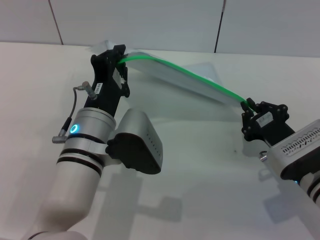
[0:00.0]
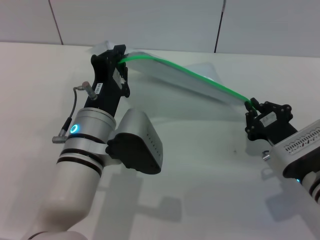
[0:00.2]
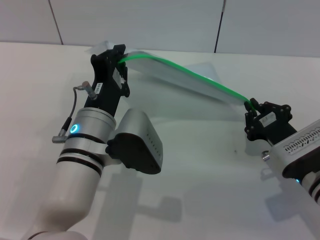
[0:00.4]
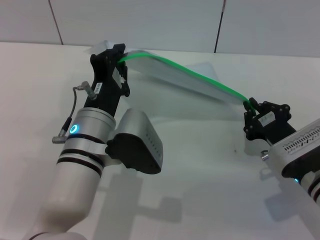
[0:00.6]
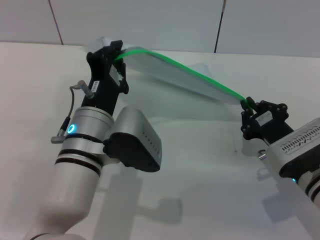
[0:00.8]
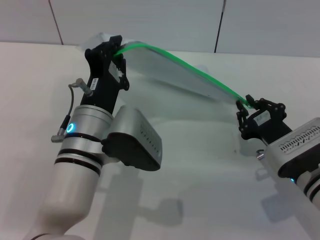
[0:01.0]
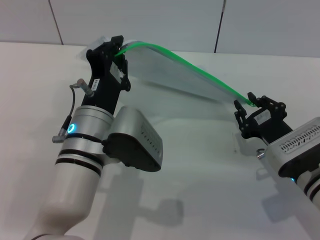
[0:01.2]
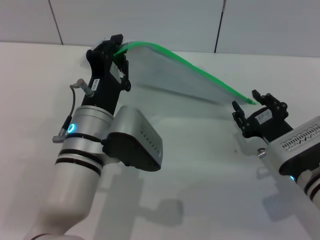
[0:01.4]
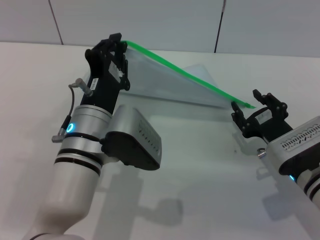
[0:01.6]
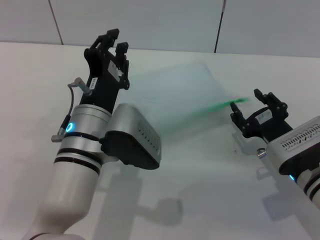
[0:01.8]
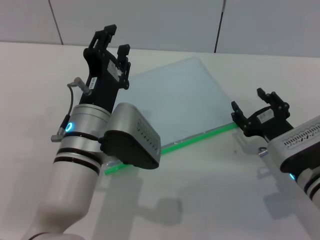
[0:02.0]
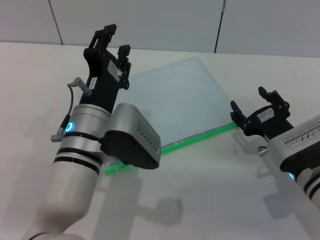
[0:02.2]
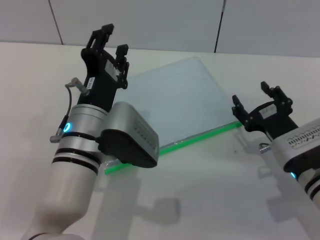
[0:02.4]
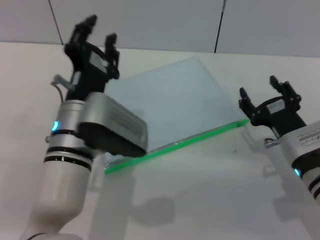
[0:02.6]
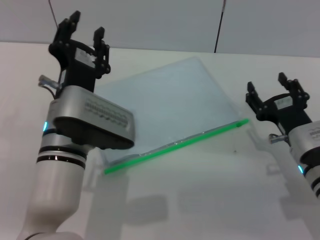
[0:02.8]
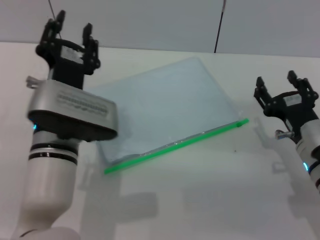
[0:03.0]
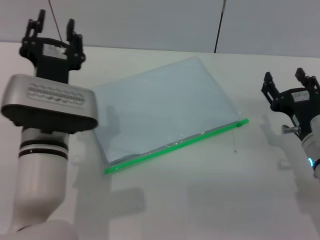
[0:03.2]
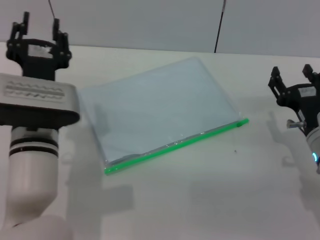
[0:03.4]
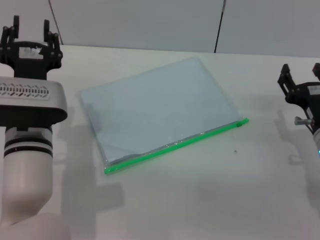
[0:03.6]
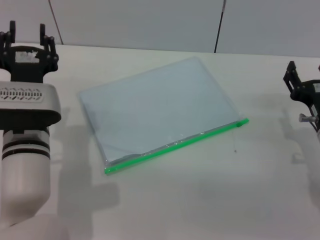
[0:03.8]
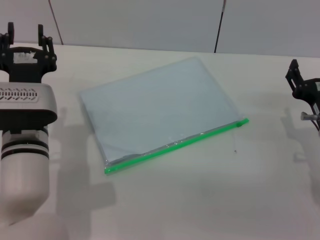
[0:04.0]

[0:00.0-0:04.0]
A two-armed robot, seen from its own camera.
Step, 0:01.6 to 0:02.4: Place the transparent plastic bag.
0:00.0 to 0:01.4: The right gripper opens.
0:01.4 to 0:02.6: The right gripper opens; the left gripper opens.
0:02.6 to 0:04.0: The left gripper moves to the left, some 5 cm.

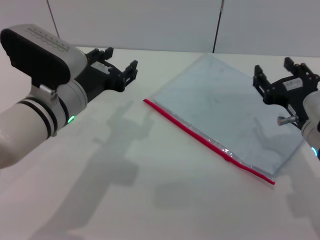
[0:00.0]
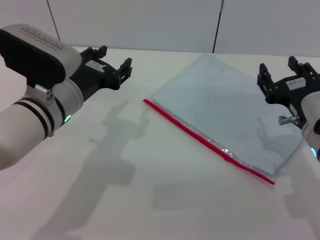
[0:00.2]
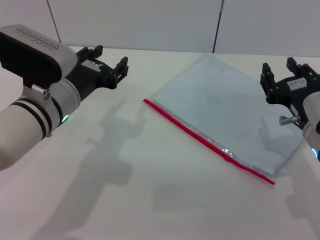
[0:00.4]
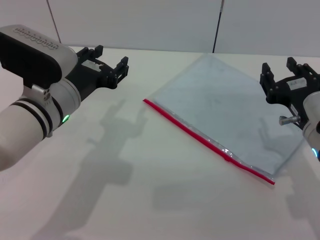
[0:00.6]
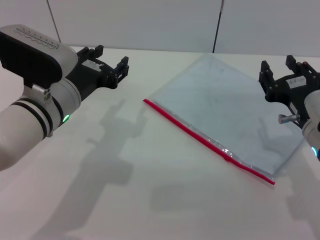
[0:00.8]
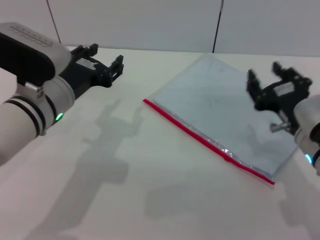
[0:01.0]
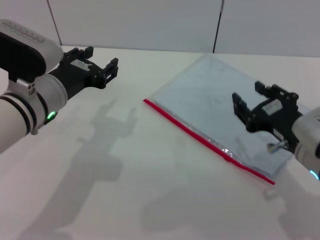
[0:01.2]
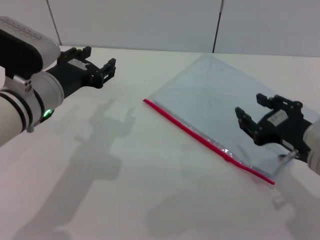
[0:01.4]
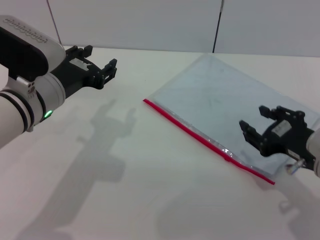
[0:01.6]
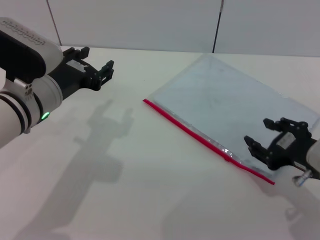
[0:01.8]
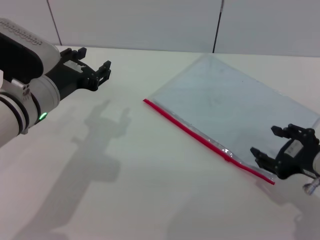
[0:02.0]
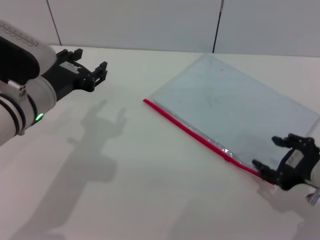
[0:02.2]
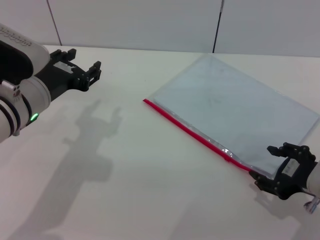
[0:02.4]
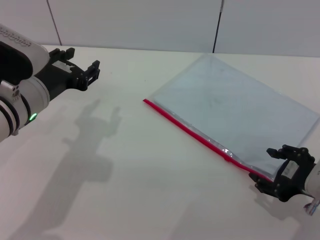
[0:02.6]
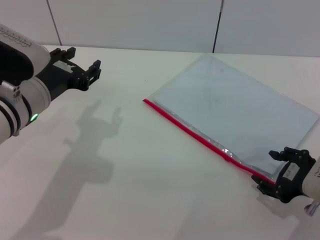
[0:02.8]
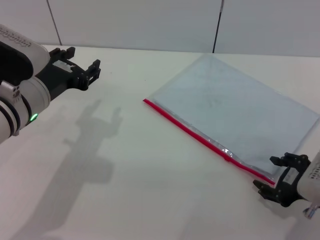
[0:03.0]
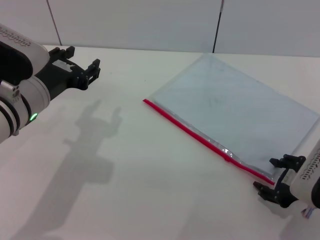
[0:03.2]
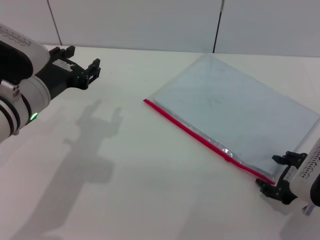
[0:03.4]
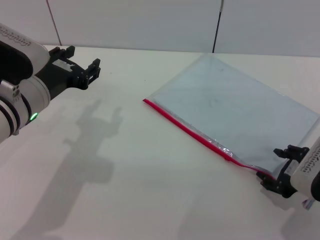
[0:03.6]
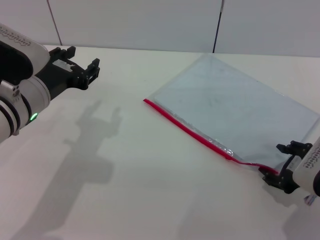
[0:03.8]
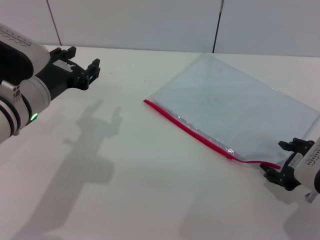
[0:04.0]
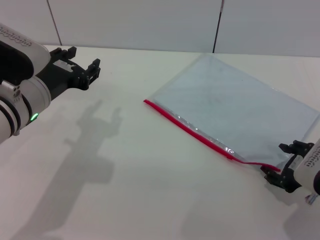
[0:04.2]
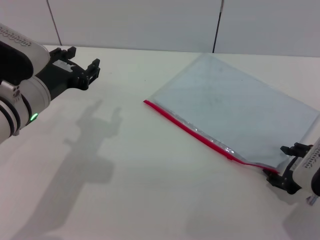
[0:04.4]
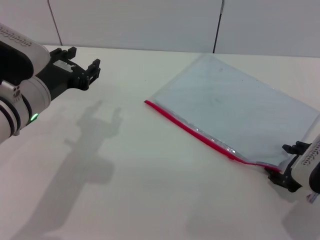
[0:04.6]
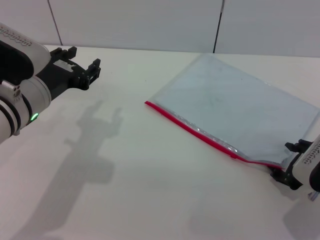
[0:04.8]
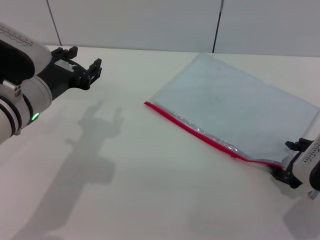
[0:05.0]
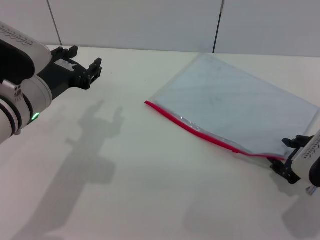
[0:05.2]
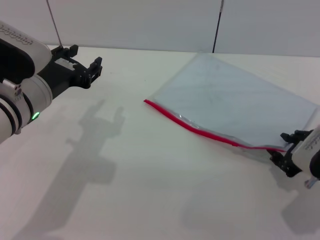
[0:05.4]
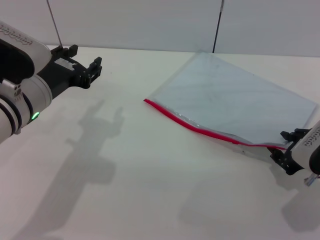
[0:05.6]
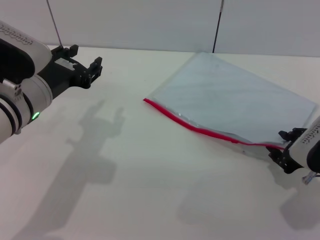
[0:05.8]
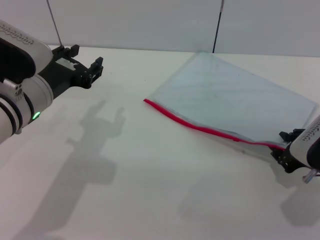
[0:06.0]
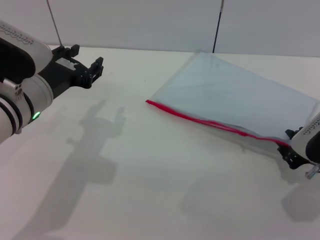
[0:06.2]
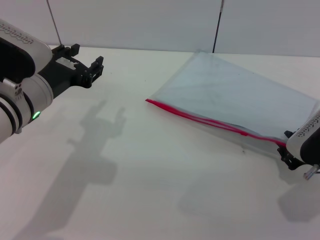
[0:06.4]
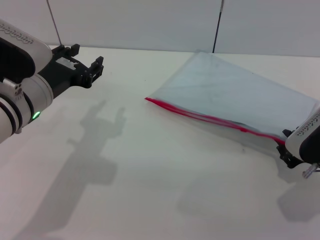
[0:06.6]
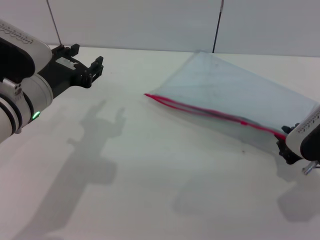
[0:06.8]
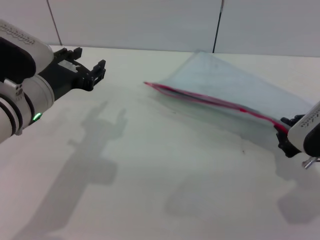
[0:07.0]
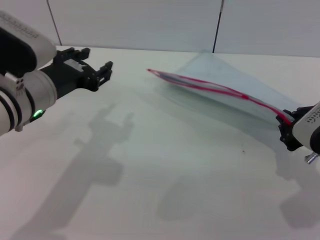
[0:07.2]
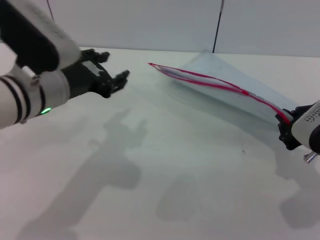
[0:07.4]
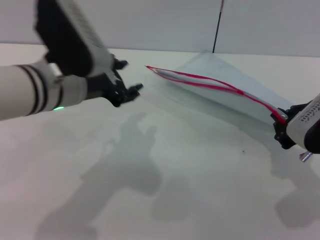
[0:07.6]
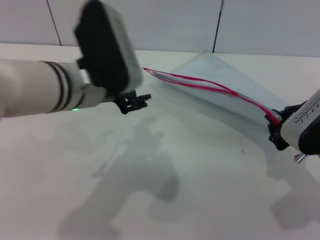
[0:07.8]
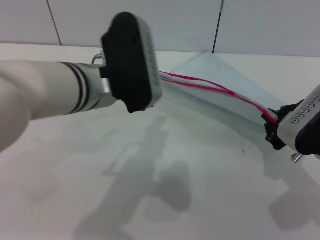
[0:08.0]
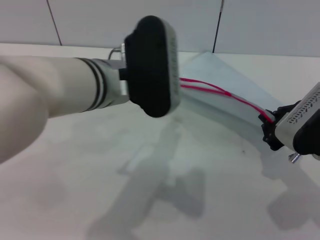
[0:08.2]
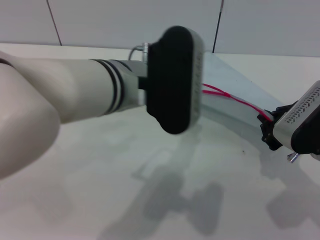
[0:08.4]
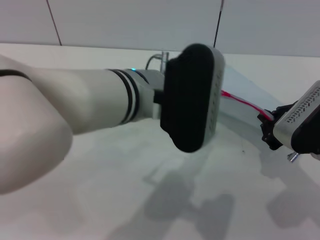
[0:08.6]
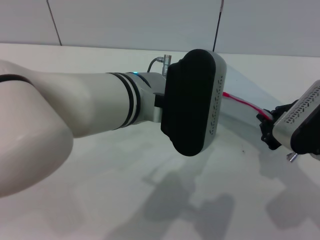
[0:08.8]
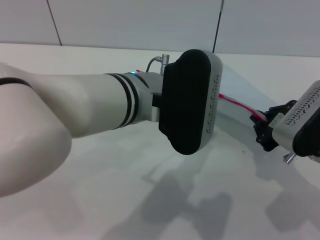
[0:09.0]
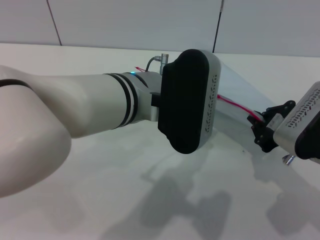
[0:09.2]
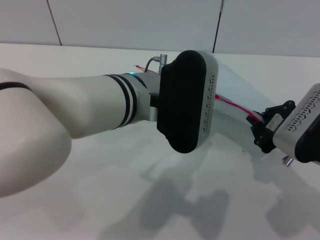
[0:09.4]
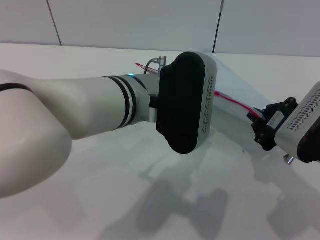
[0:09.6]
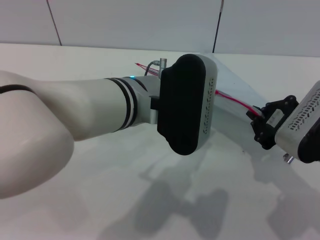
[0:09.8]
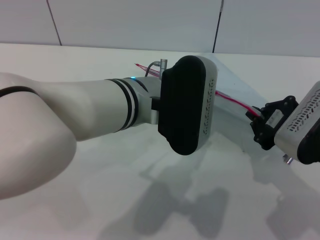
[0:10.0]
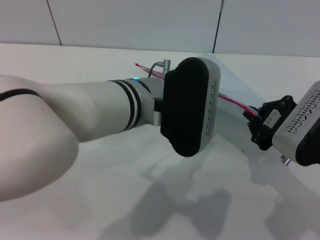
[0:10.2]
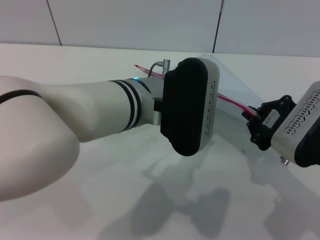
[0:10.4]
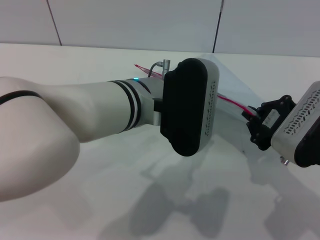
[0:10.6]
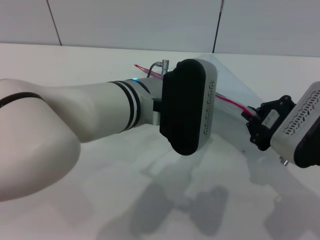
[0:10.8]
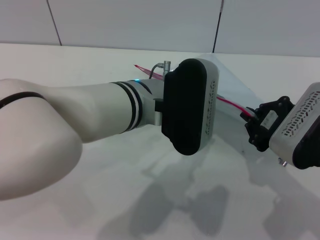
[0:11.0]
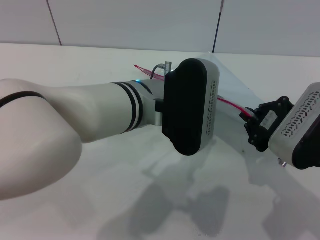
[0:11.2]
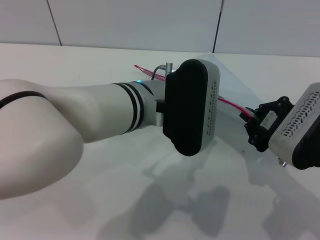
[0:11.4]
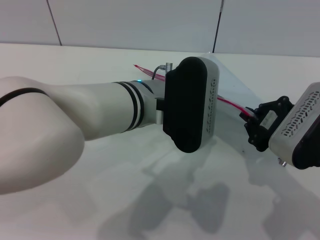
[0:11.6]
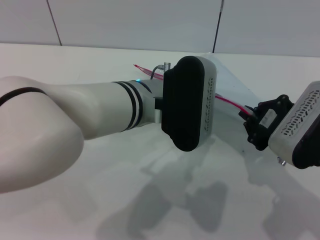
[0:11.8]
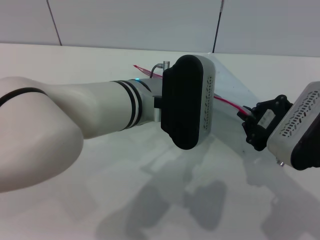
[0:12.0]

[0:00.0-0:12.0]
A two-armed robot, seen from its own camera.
Step, 0:00.0 to 0:08.2: Pick up the transparent plastic bag with the right gripper.
0:03.0 to 0:04.4: The grippers move only a little.
0:04.4 to 0:06.0: The right gripper closes.
0:06.0 to 0:07.6: The right gripper closes, while the left gripper ends up roughly 5 cm from where it was.
0:07.6 to 0:09.0: The left gripper heads to the right, covering approximately 10 cm.
0:09.0 to 0:12.0: The grippers stay close to where they were, moving slightly.

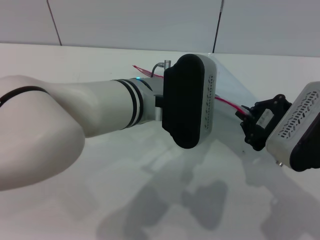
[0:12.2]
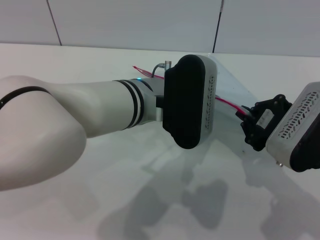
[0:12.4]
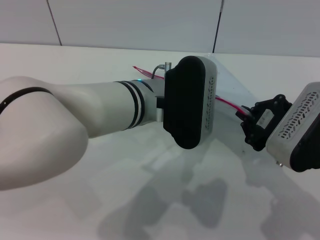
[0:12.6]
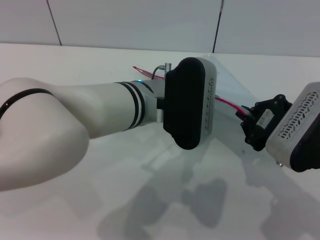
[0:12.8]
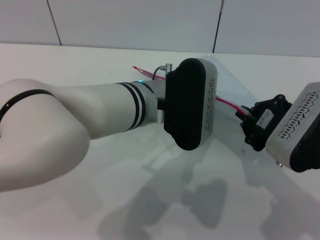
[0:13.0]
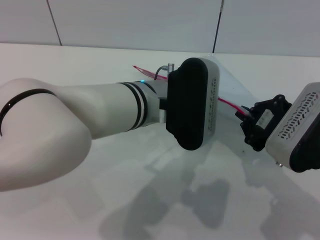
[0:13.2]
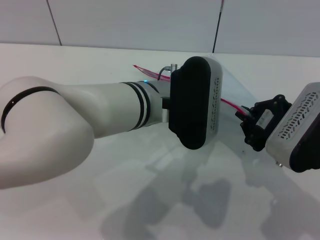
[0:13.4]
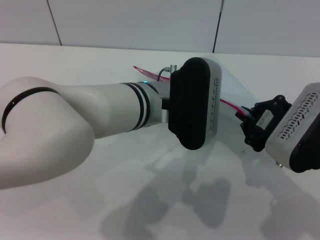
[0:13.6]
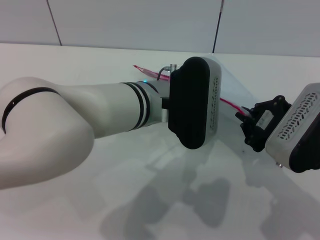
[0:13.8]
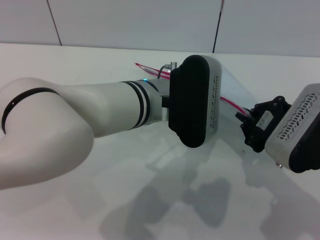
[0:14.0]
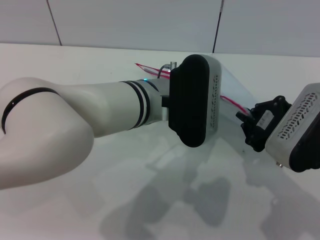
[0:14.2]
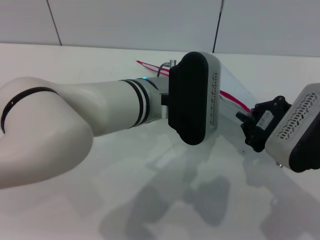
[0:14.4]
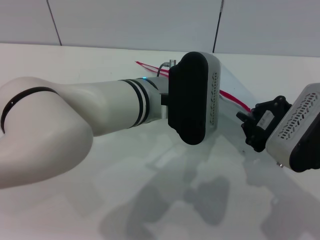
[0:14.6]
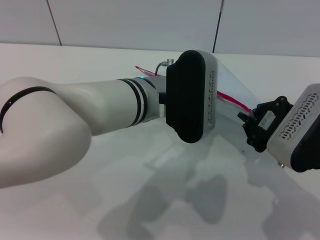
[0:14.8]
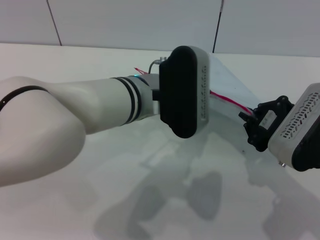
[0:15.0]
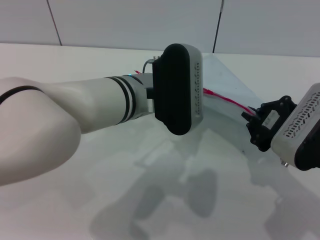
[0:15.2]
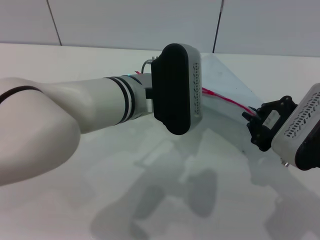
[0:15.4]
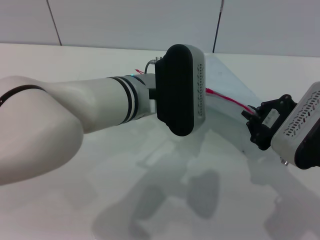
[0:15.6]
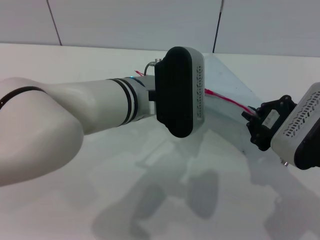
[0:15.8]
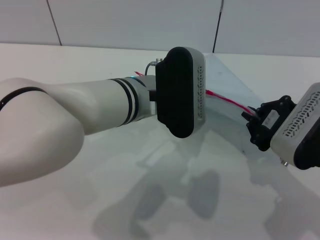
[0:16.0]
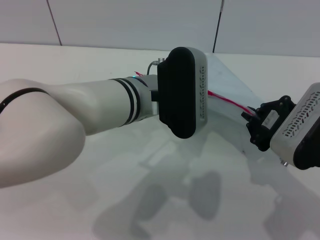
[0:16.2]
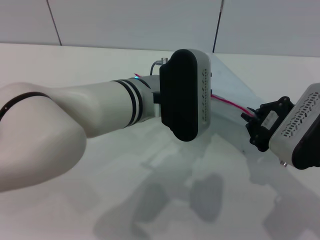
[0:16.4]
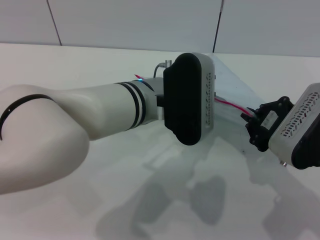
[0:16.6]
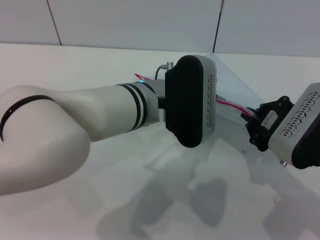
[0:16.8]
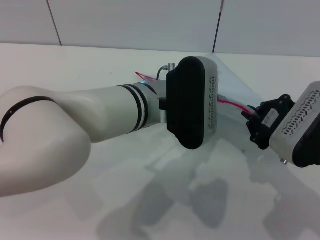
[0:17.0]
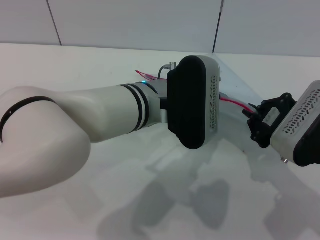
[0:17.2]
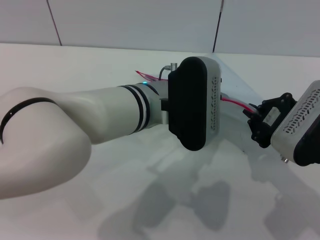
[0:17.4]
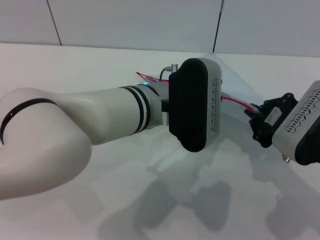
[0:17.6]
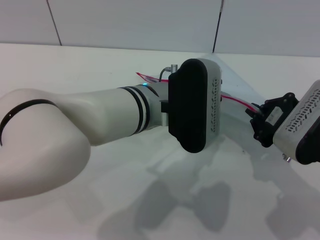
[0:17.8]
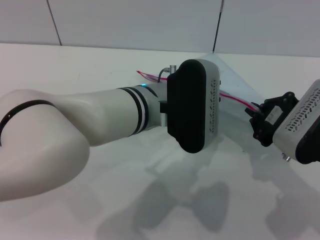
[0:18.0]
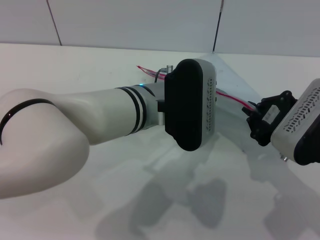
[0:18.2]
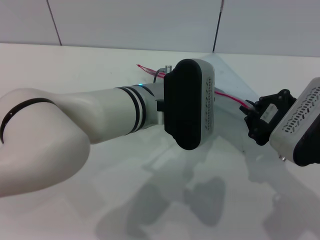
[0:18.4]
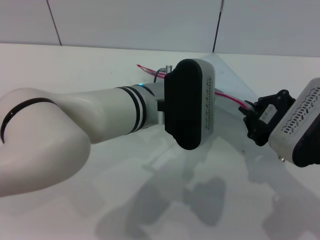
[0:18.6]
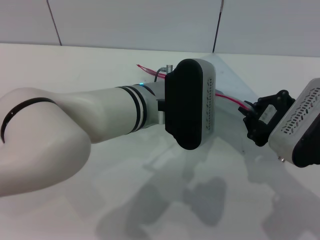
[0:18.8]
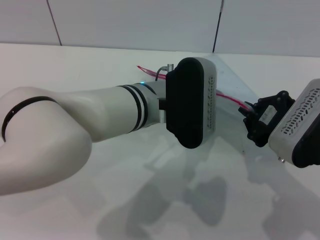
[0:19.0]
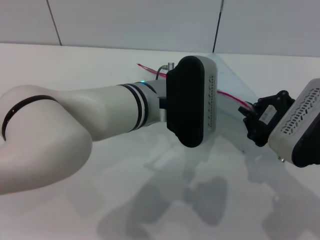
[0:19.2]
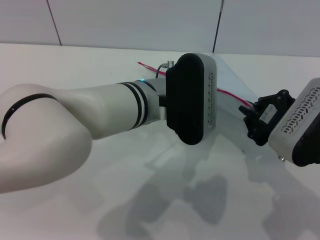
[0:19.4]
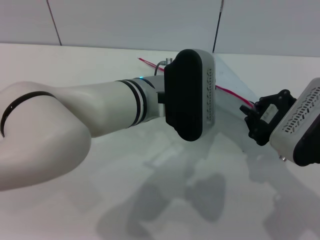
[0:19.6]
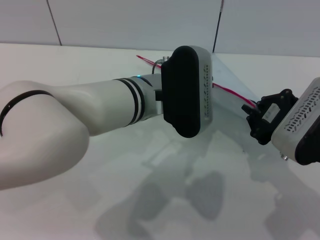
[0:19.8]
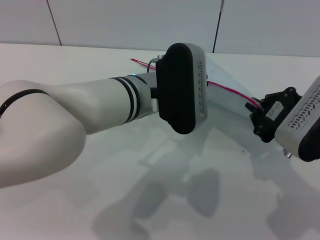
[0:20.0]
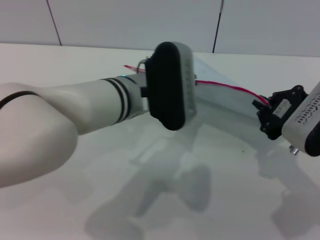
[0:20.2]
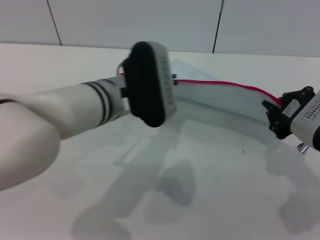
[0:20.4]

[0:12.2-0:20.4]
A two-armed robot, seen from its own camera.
0:12.2 to 0:13.8: The two grippers keep their place.
0:13.8 to 0:15.4: The grippers make only small movements.
0:15.4 to 0:17.2: The left gripper opens.
0:17.2 to 0:18.8: Both grippers stay about where they are.
